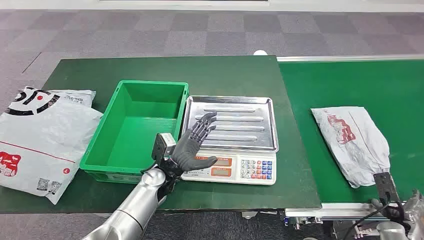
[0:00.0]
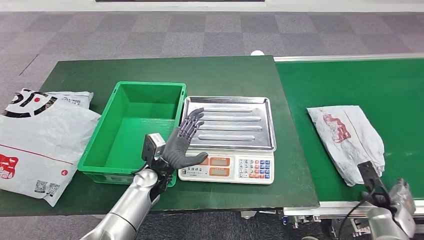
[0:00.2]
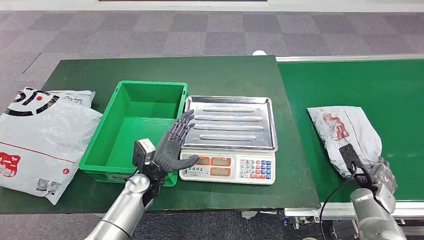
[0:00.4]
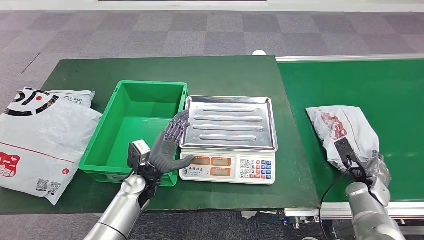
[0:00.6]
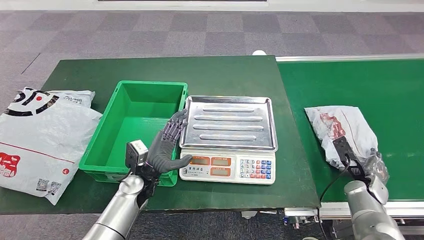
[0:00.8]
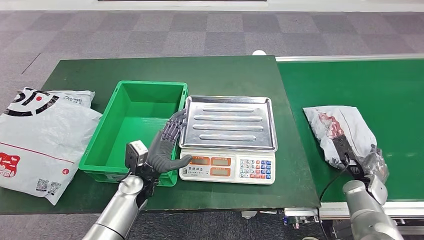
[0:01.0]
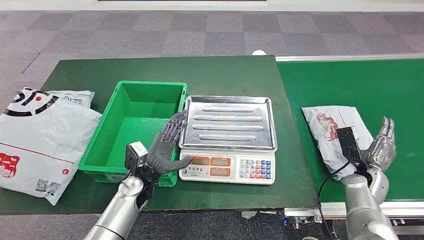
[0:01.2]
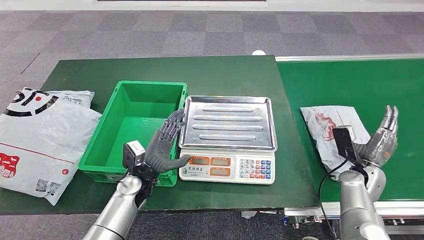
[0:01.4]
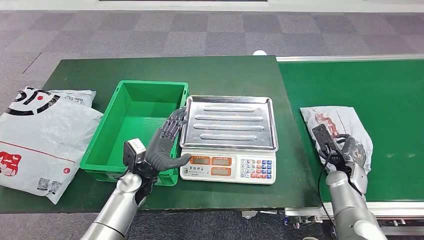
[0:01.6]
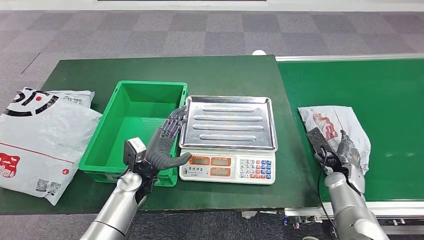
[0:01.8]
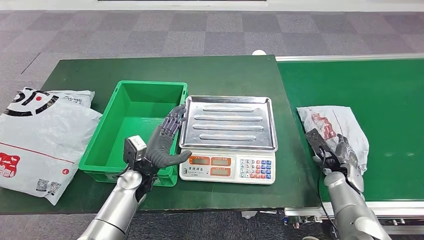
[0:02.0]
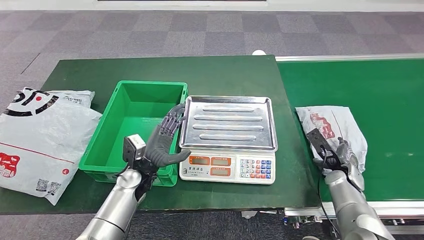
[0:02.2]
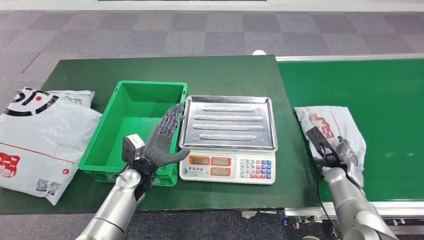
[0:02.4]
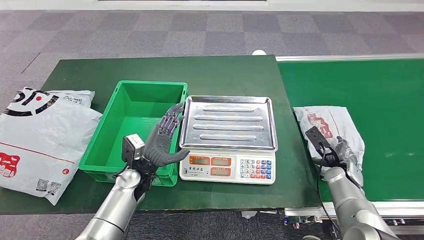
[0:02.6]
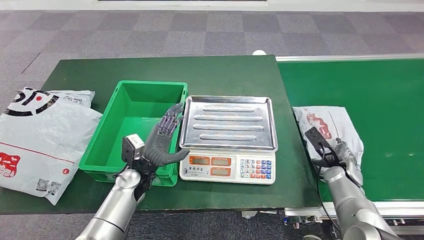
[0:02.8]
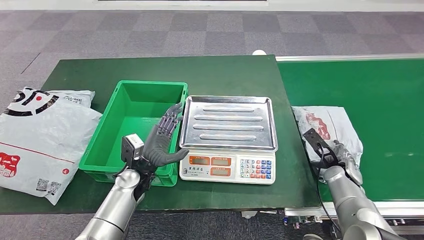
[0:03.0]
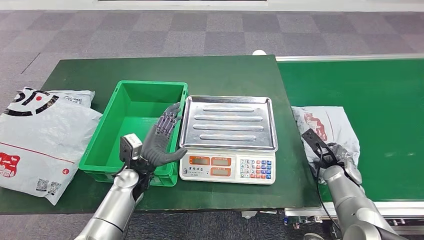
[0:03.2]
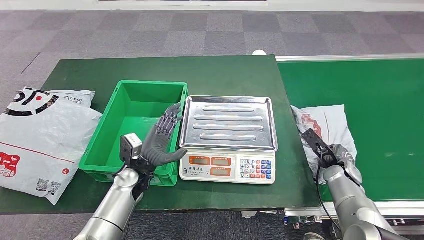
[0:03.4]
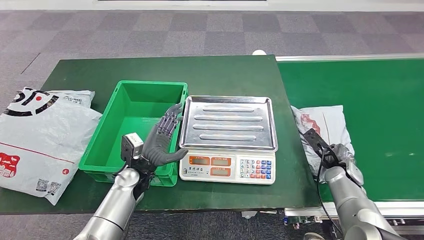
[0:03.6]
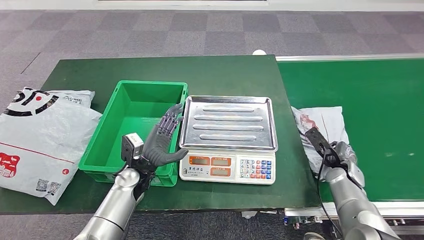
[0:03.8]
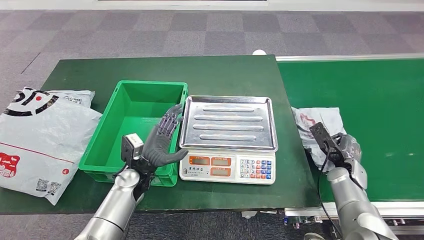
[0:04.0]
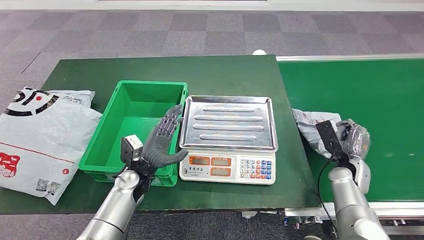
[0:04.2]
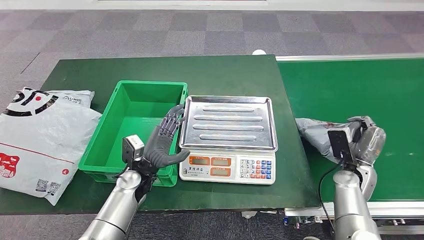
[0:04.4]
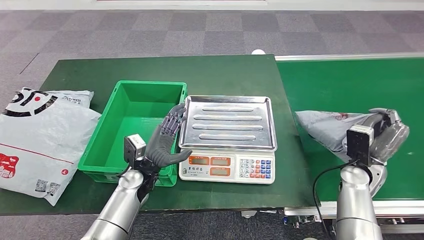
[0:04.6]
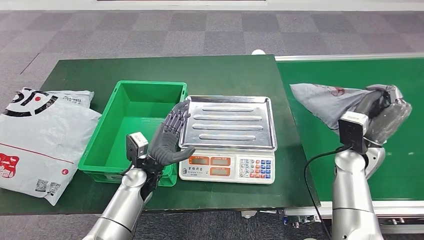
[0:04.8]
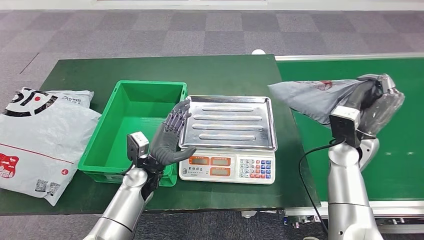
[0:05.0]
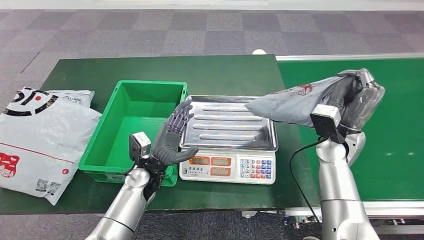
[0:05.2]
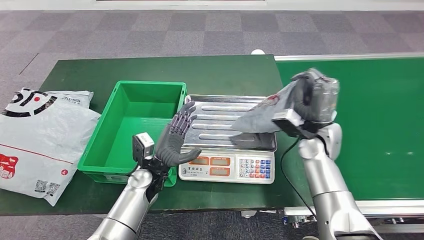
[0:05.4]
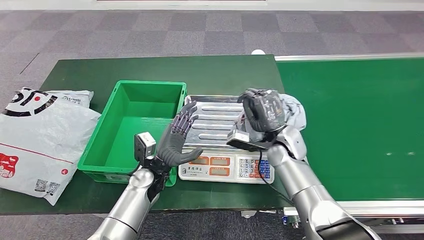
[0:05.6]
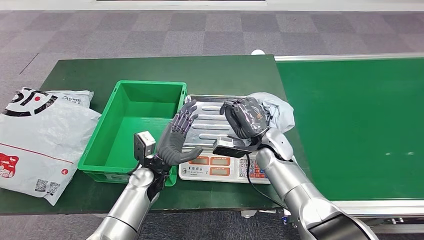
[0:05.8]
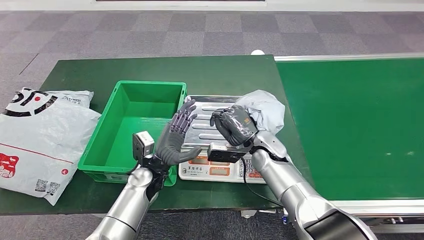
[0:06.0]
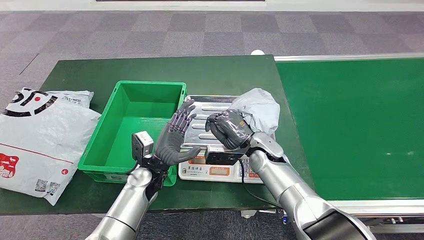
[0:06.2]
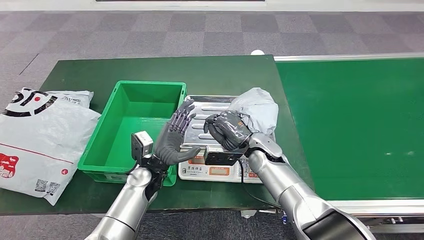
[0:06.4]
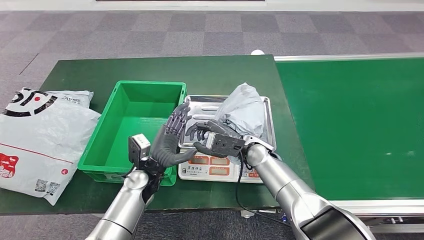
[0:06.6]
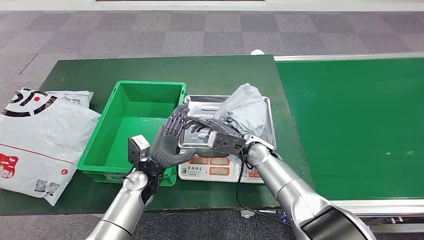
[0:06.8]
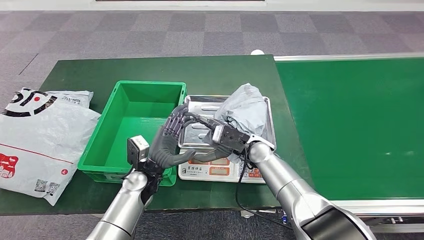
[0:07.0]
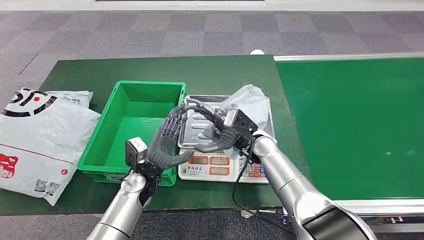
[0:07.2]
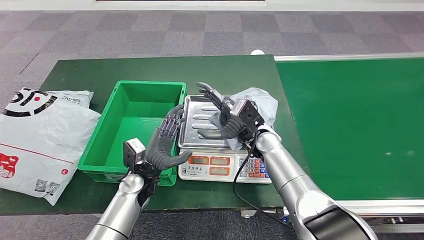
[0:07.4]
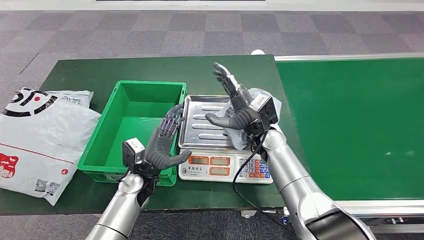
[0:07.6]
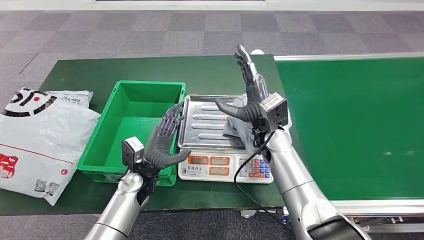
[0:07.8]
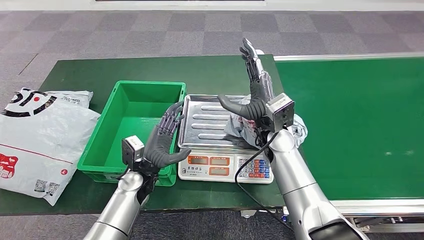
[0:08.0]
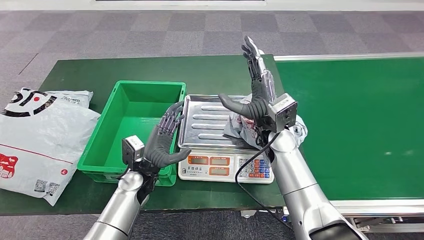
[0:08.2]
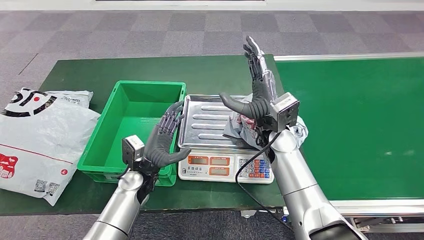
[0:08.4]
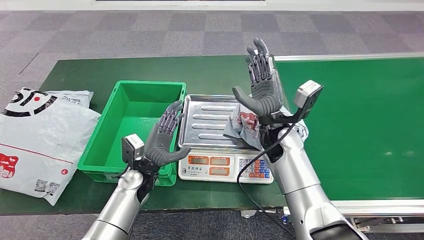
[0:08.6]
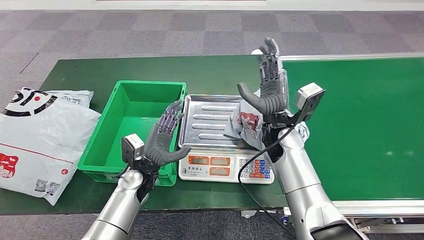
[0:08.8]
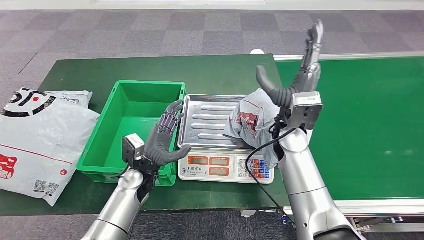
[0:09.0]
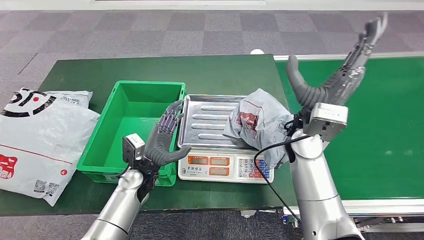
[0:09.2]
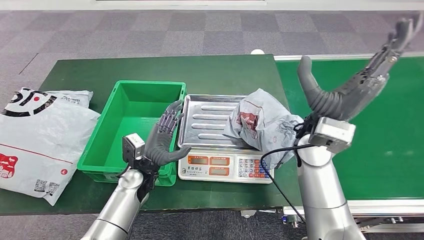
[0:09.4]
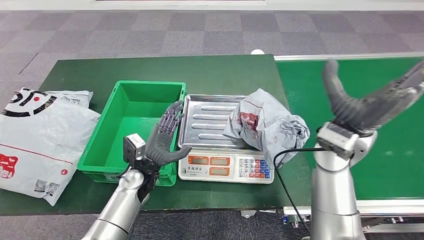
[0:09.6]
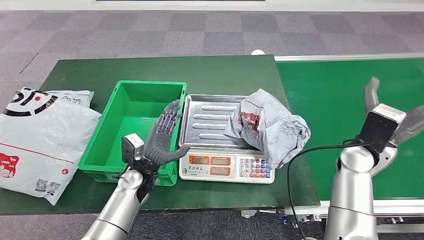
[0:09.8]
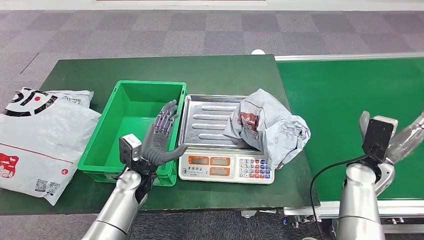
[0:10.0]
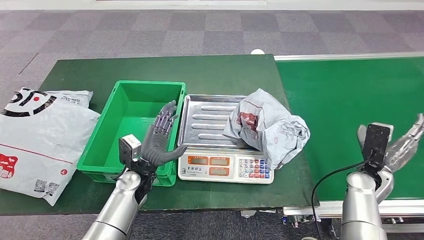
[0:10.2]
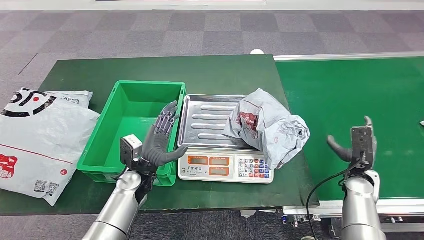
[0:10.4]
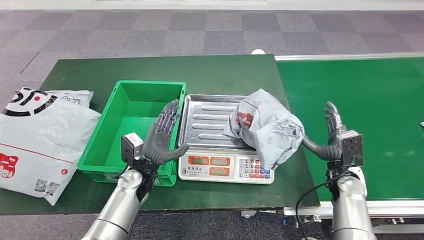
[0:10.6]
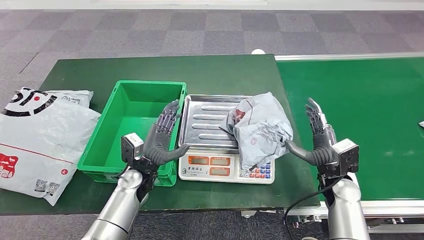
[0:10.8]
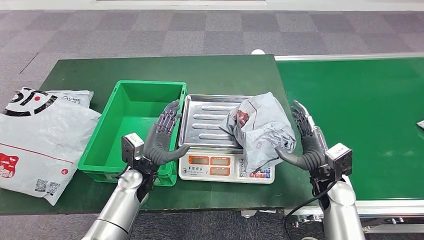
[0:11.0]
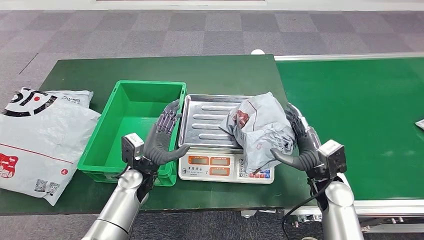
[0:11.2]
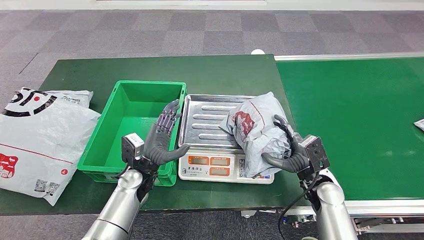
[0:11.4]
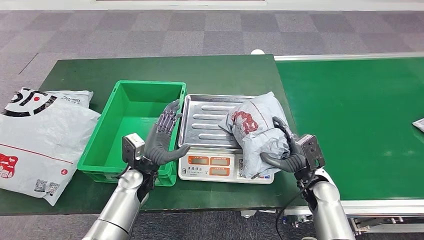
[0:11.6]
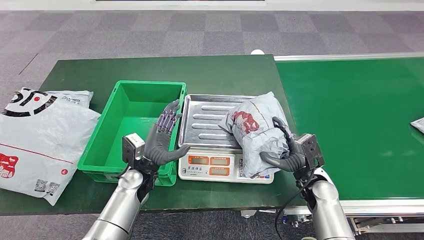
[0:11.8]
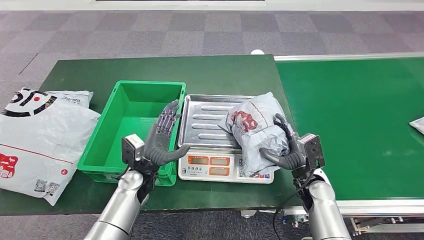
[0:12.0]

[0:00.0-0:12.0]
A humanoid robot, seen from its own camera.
Step, 0:00.0 to 0:05.0: Take the parcel off the conveyor belt.
Step, 0:05.2 to 0:08.0: Place the parcel onto the inbound machine.
0:06.0 to 0:07.6: The right hand moves about 5 cm.
0:07.6 to 0:09.0: The right hand shifts approximately 5 cm upward.
0:09.0 to 0:10.4: The right hand travels to the right and downward by about 30 cm.
0:10.4 to 0:12.0: The right hand moves to the left, roughly 15 cm.

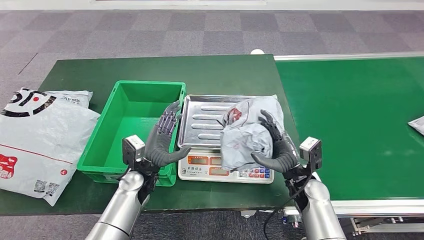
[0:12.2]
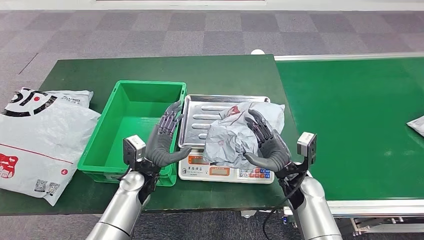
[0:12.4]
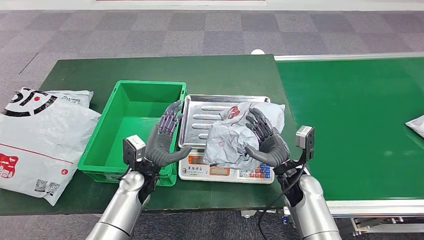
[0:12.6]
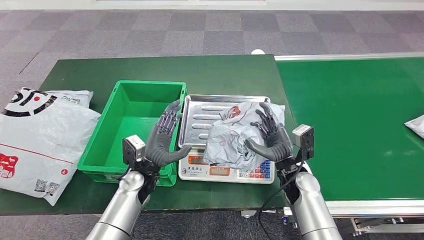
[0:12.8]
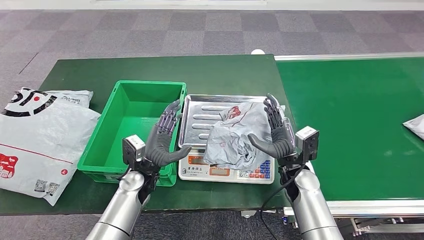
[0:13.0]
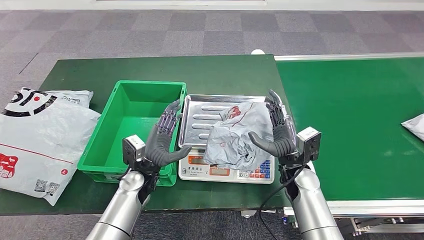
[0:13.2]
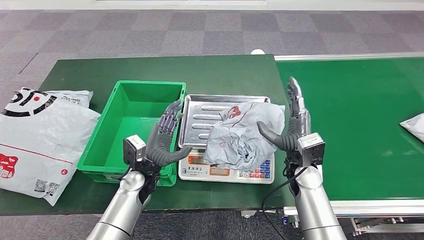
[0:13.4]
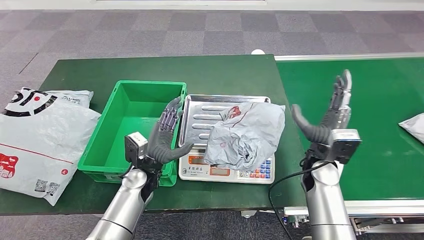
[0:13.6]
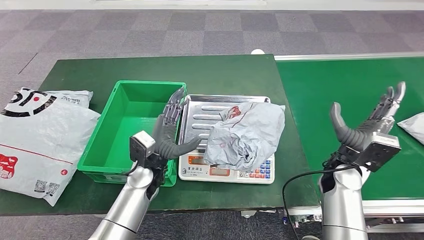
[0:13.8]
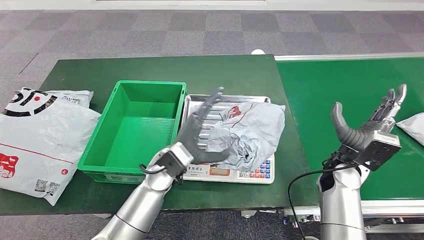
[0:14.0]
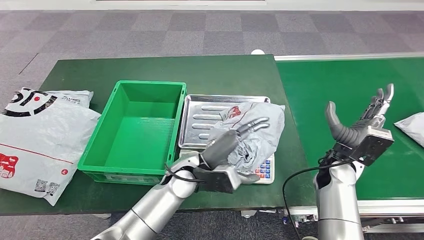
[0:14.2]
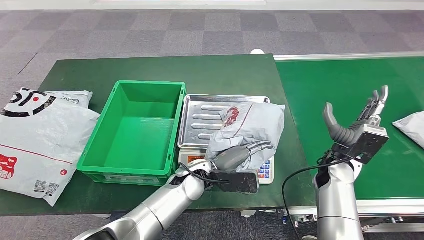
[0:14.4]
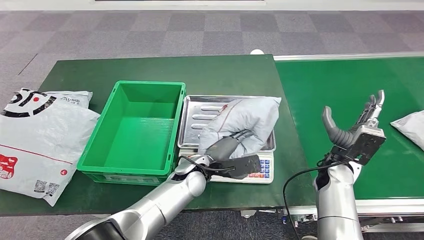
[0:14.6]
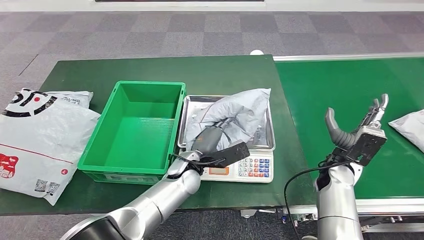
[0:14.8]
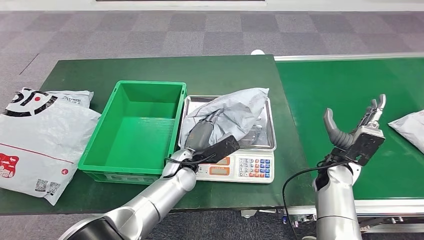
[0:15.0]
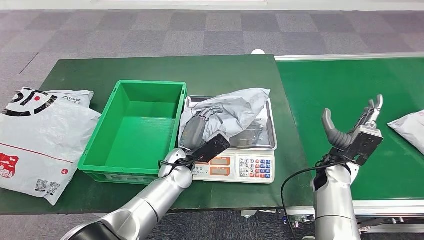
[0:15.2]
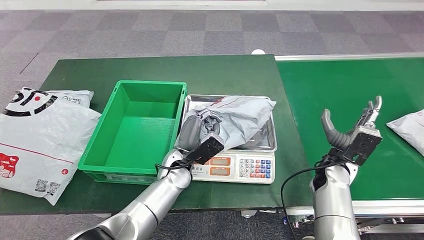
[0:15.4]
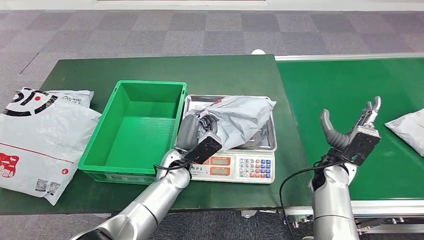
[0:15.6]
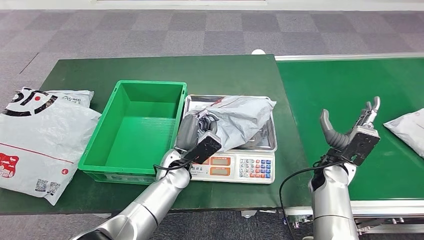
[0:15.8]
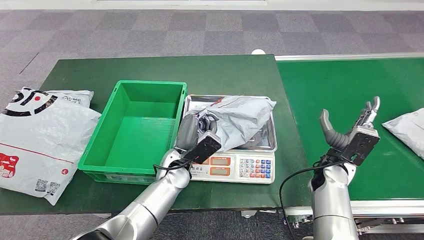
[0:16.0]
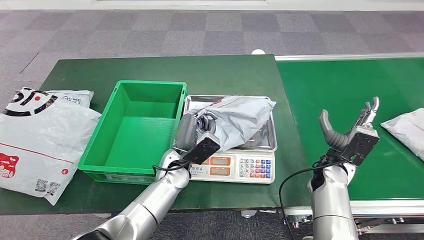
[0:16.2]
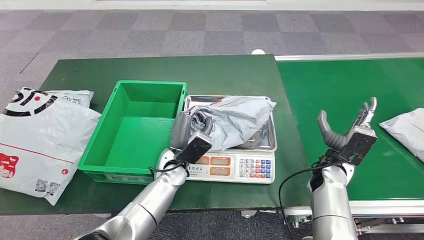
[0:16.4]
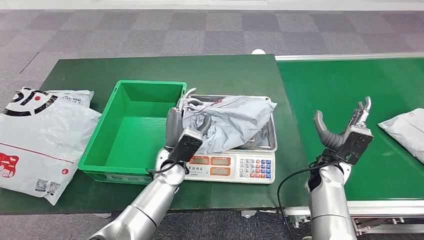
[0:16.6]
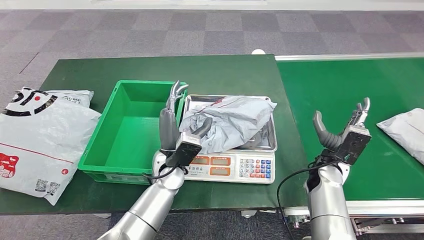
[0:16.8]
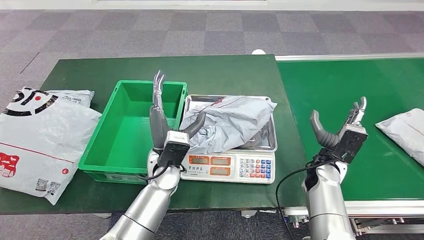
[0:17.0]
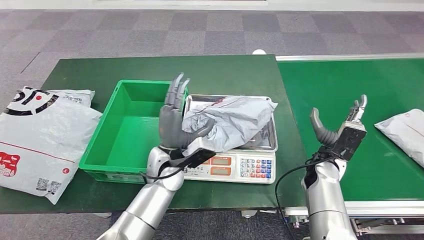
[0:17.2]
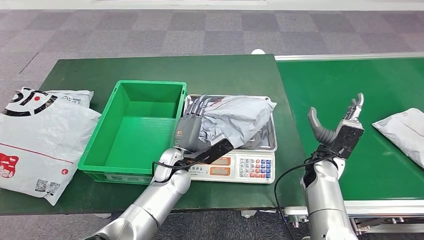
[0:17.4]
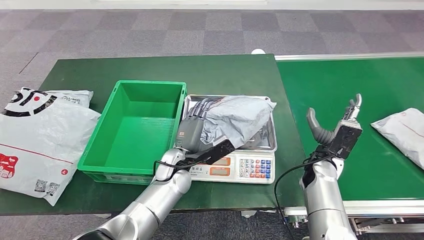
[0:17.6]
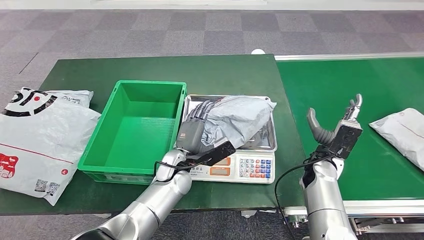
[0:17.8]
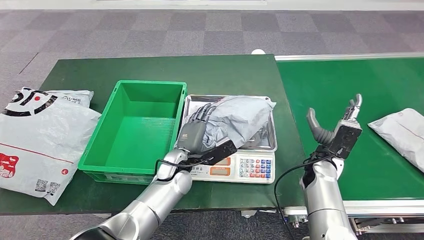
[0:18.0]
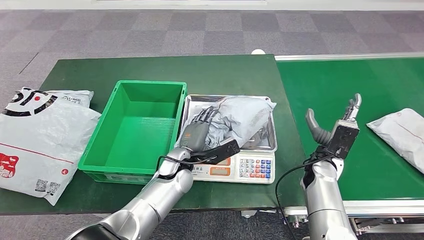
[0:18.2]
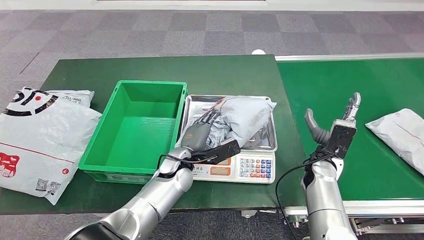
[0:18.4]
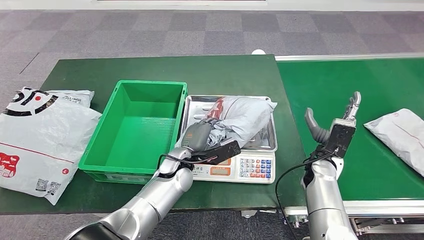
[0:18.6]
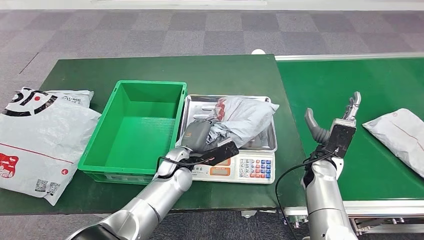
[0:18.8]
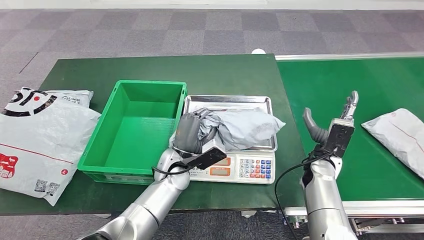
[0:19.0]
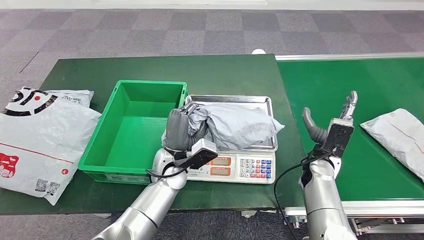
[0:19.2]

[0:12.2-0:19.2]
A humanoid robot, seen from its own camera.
0:12.2 to 0:13.6: The right hand moves upward, approximately 5 cm.
